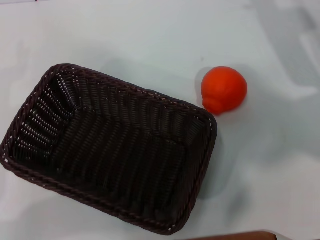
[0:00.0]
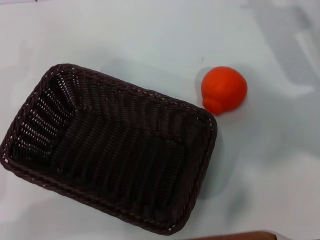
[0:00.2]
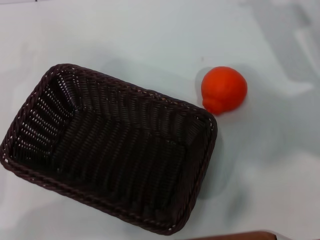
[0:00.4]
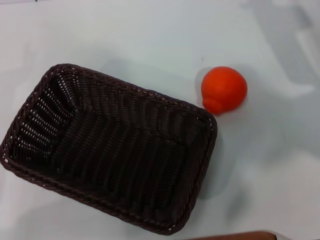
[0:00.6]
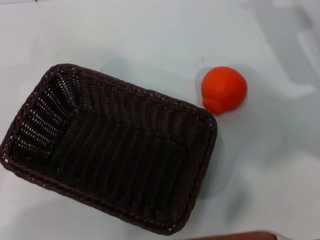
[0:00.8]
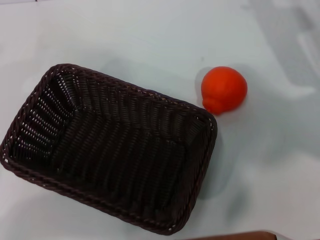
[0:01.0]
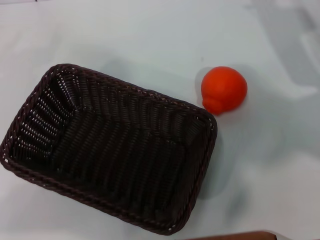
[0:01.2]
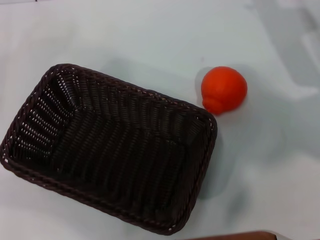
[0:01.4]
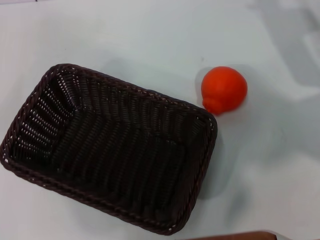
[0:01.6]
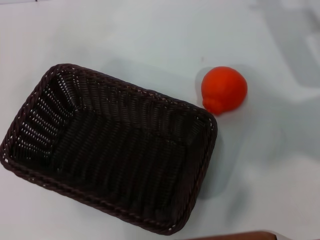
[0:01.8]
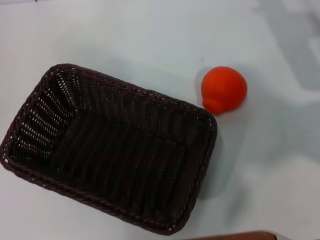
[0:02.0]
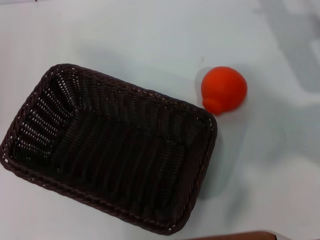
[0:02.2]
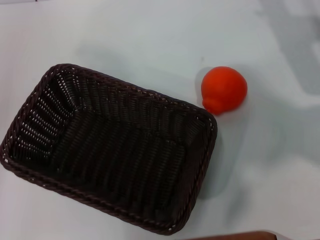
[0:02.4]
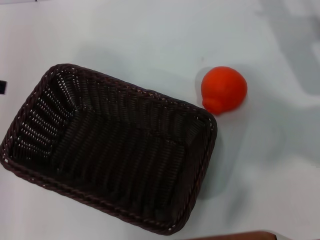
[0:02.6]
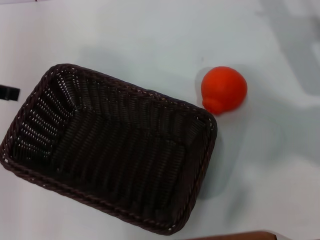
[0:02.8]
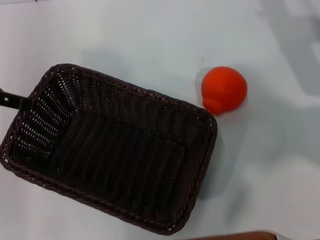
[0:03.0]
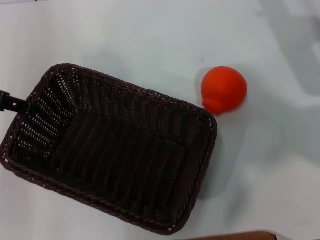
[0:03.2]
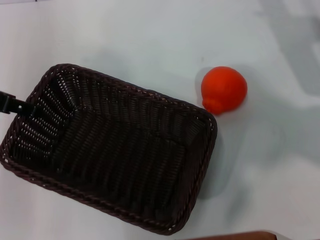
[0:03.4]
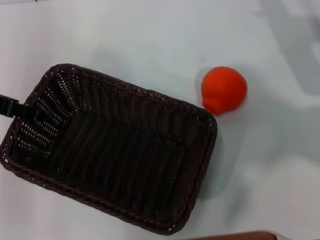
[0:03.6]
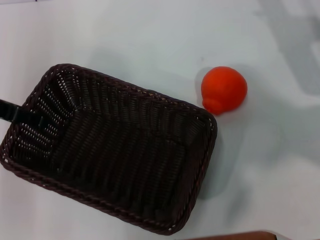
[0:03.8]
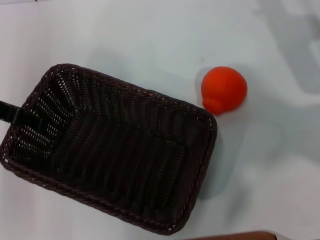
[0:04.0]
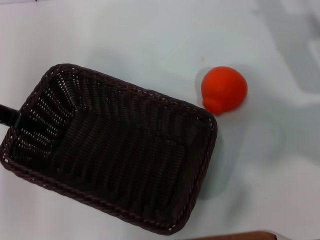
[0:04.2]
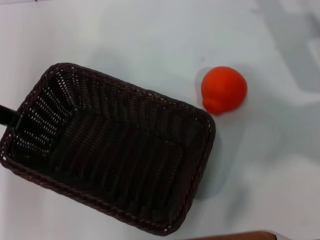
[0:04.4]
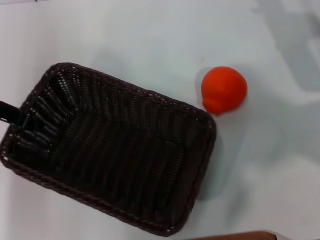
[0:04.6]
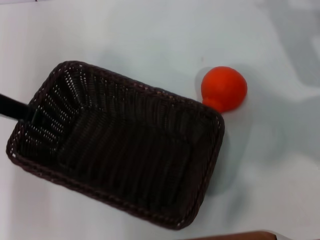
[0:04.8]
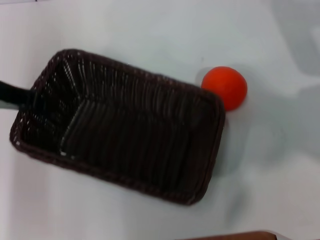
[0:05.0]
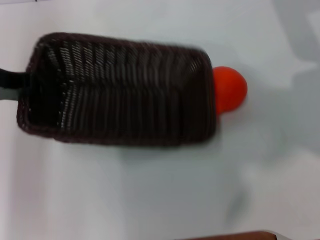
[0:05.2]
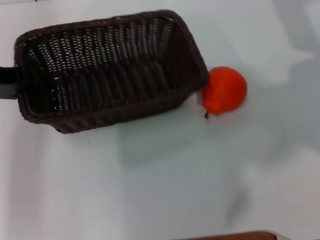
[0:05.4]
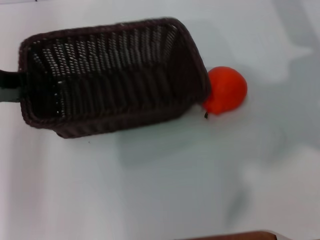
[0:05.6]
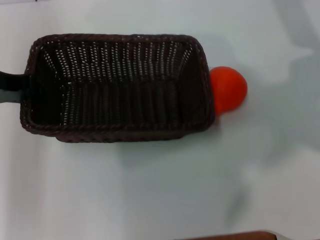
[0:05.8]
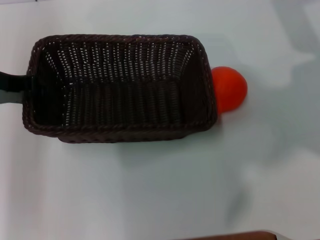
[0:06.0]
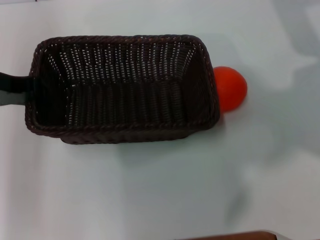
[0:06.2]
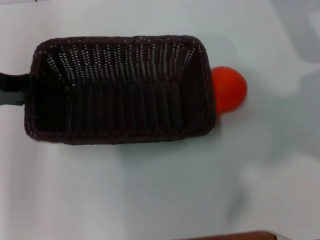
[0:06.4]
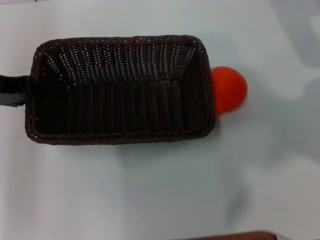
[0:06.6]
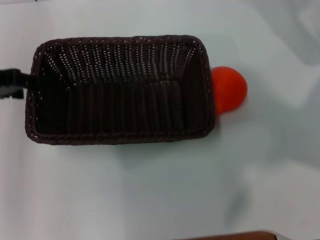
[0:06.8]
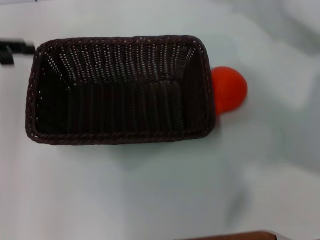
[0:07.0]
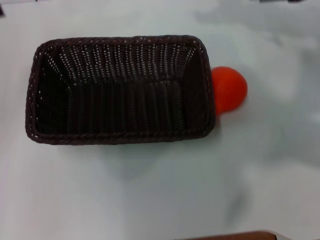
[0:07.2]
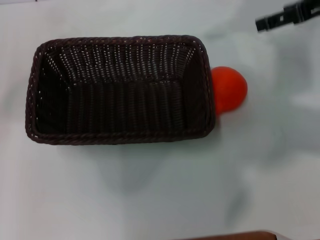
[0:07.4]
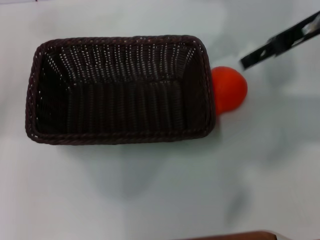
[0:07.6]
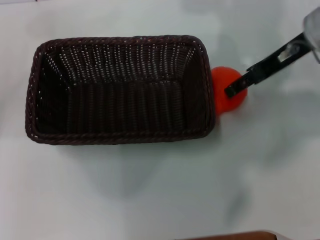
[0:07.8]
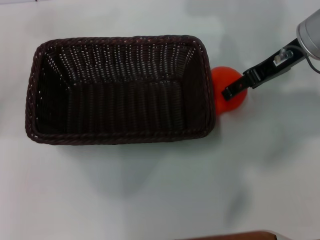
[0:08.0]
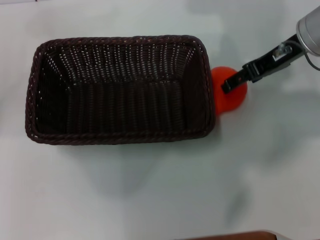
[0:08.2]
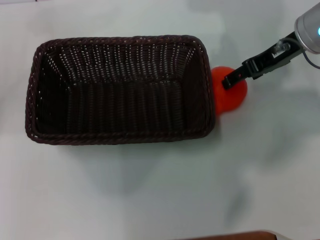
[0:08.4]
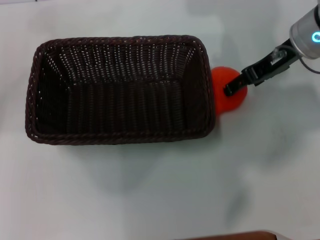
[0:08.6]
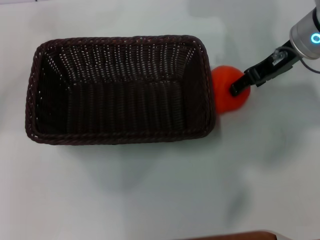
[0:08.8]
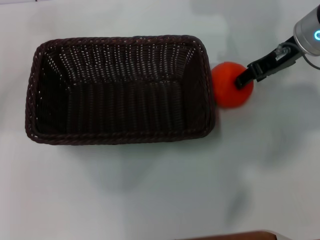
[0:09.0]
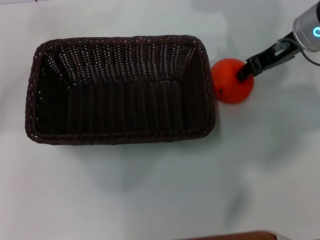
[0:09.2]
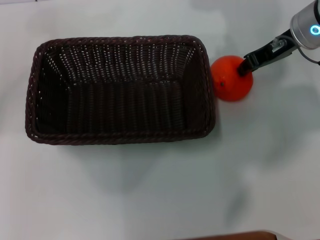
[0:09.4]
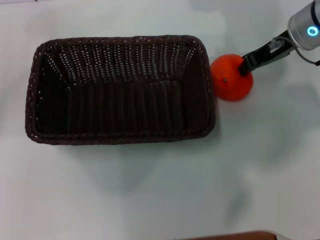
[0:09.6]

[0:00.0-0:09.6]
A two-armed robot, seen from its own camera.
Task of the whole recording: the left gripper pick up the black basket and place it horizontally in the middle of the table, the right gripper pick up the orange and place it into the black basket.
Step, 0:00.0 to 0:04.8: Pick up the dark basket with the left gripper.
Step, 0:05.0 to 0:06.6: Place the dark basket in the center of view with the left gripper.
0:00.0 to 0:01.6: The left gripper heads upward, covering approximately 15 cm.
0:01.6 to 0:03.2: The left gripper shifts some 15 cm to the right and forward.
0:03.2 to 0:04.8: The left gripper shifts by roughly 5 cm, and closes its fingers.
0:06.4 to 0:08.0: Both grippers travel together to the left, some 10 cm. The left gripper opens.
0:08.0 to 0:09.6: The right gripper closes its fingers.

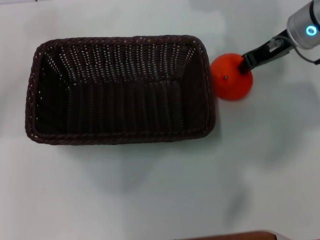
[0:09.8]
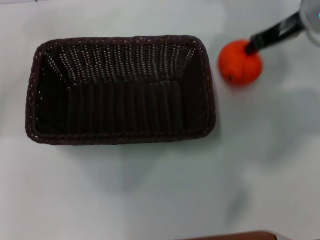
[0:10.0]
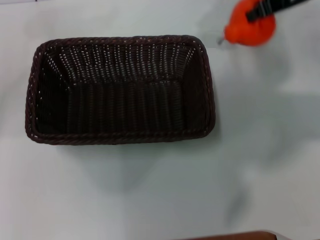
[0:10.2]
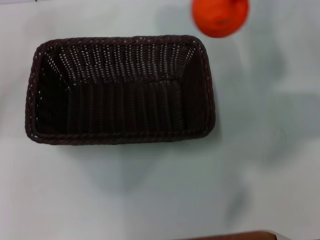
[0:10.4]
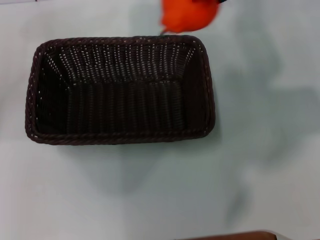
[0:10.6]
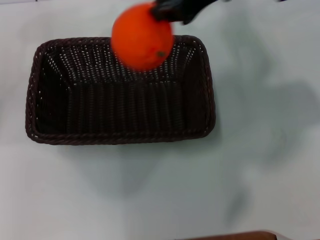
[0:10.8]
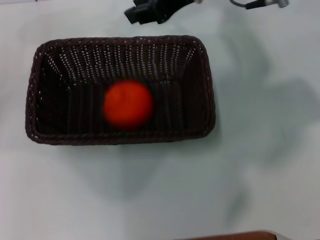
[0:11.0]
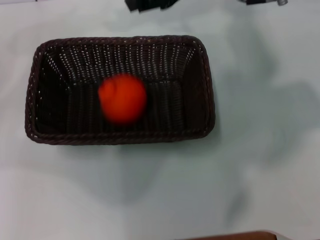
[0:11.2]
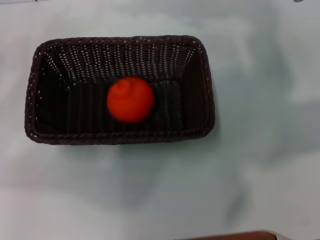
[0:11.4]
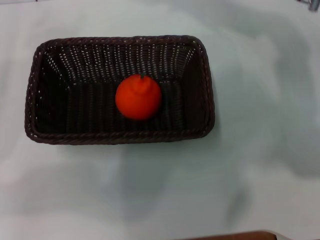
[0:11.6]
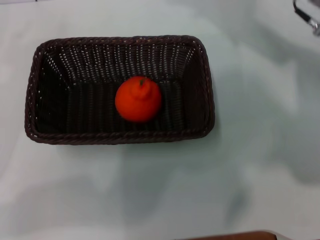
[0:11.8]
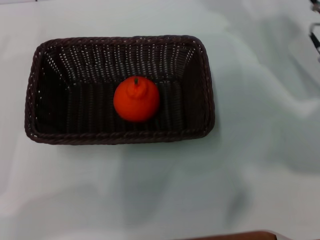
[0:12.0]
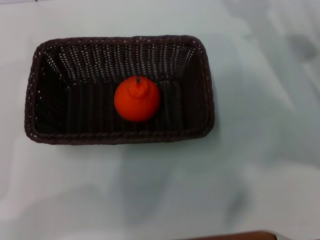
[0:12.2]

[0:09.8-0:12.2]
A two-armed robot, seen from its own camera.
Task of the whole recording: the left gripper pick up the black basket and place it horizontally in the middle of the table, the right gripper pick up the orange and place it into the black basket.
Step, 0:10.2 to 0:11.0: Place the orange into the dark basket with the right gripper.
0:09.8 to 0:11.0: The right gripper shifts about 15 cm to the left and upward.
0:11.0 to 0:12.2: The right gripper heads downward and to the right, covering approximately 25 cm, and opens. Meanwhile the left gripper shifts approximately 15 cm downward and backward.
